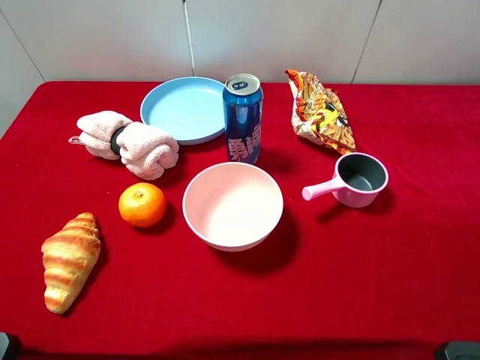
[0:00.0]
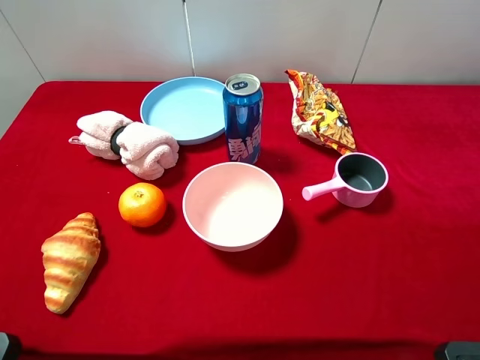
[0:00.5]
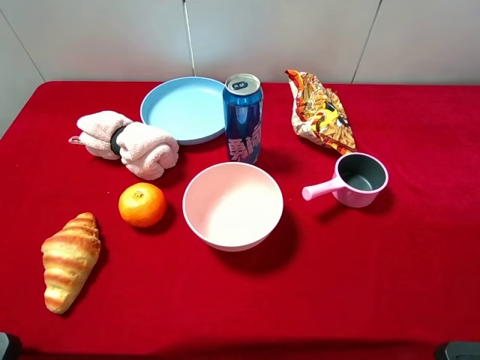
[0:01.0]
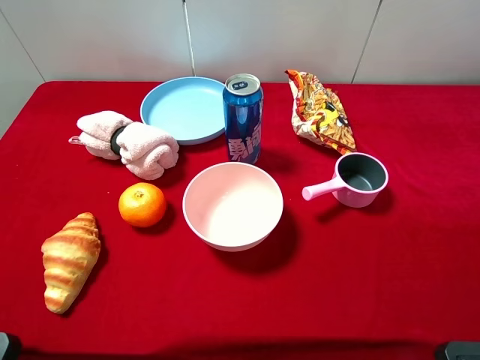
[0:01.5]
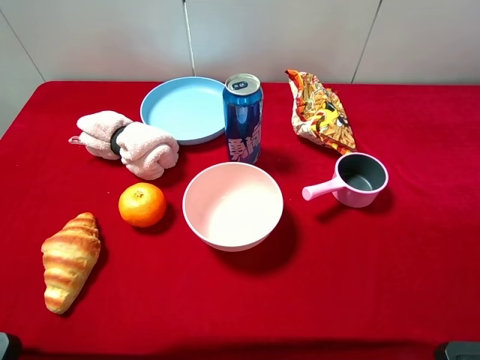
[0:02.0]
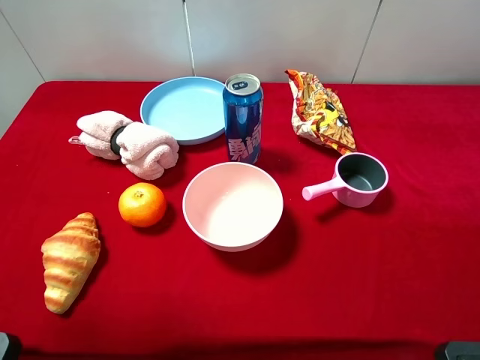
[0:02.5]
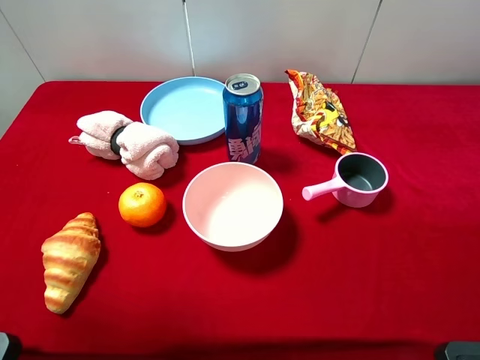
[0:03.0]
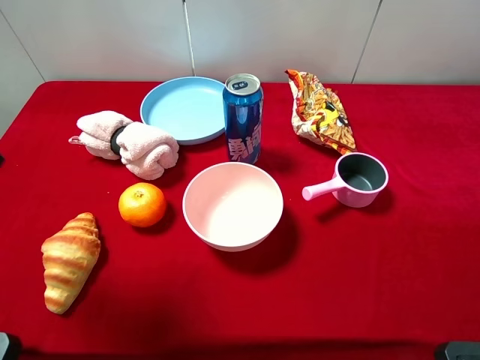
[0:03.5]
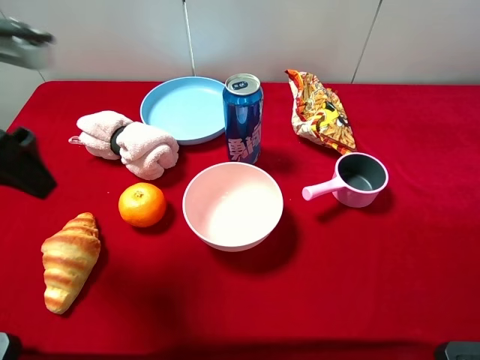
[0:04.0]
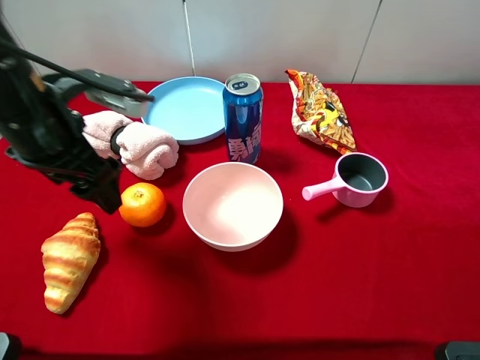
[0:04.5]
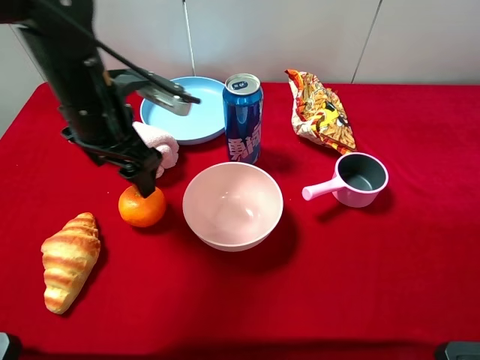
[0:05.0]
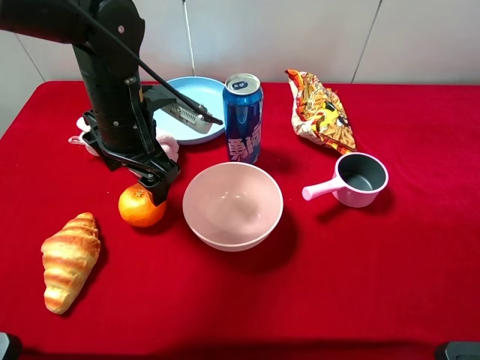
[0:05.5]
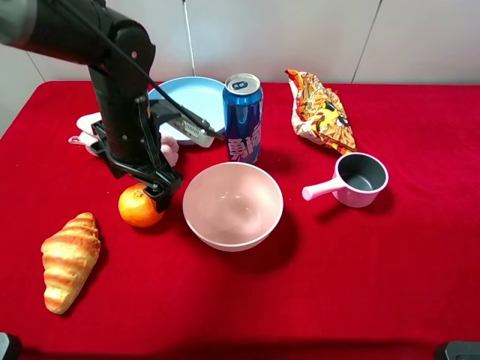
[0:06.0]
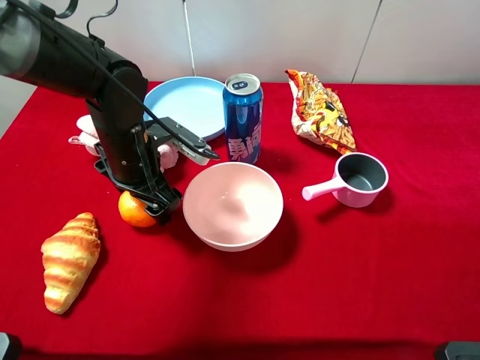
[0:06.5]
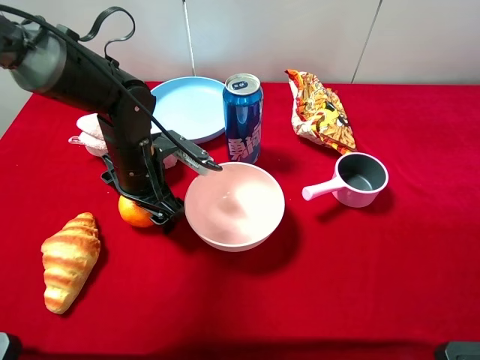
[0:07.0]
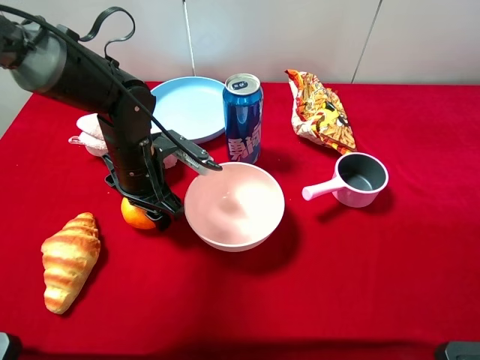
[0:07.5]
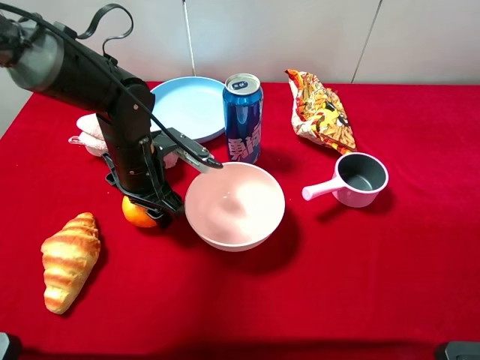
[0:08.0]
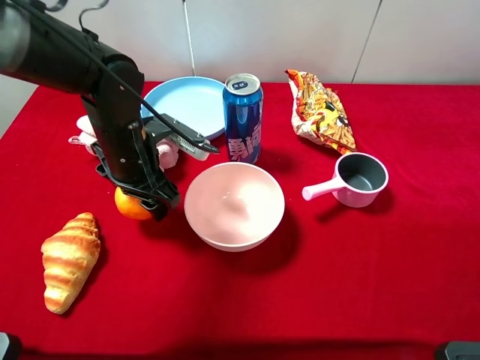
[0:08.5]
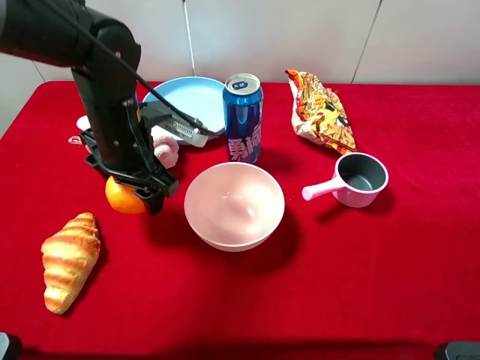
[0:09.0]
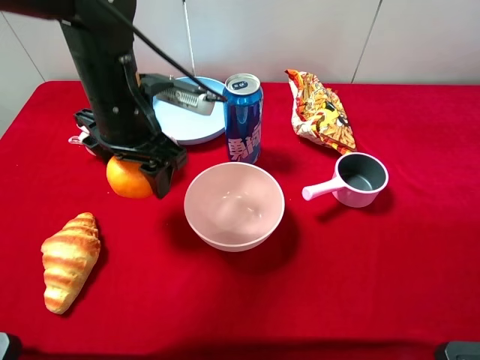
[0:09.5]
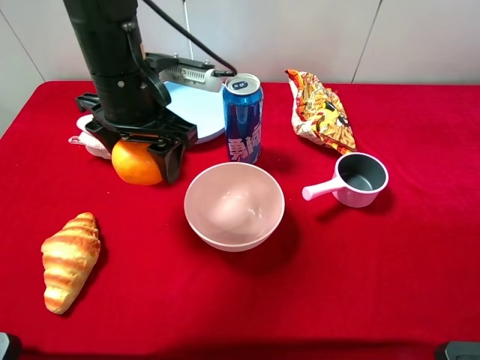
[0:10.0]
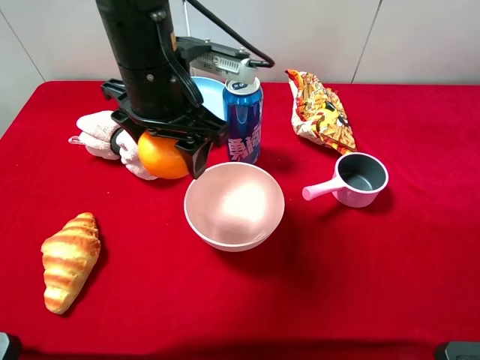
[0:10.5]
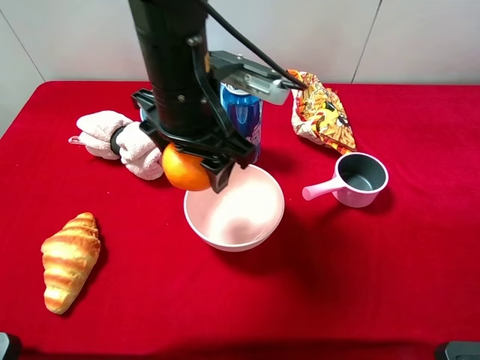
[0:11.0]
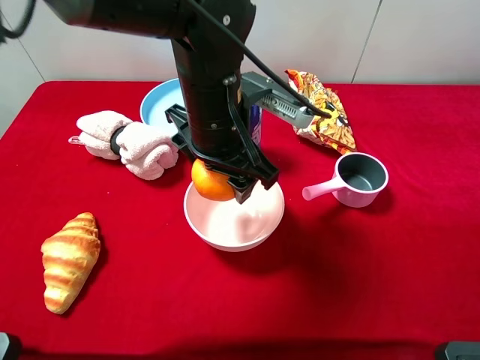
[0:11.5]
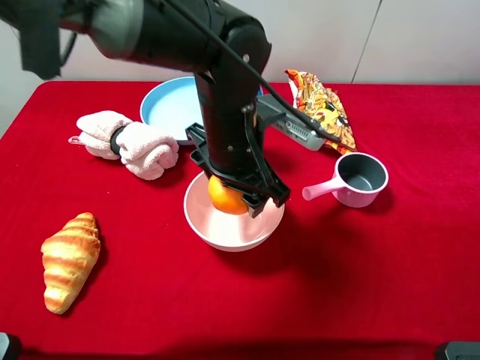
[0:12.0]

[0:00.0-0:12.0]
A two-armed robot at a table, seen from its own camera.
Task of the whole recording: pick up an item with a gripper and place it in a random container on the desktop.
0:02.0 to 0:04.0: The left gripper is displaced forward, to the right and downward by roughly 15 cm.
0:04.0 to 0:06.0: The left gripper moves downward, to the right and forward, some 20 cm.
0:06.0 to 0:08.0: The left gripper closes its fingers.
0:08.0 to 0:10.0: The left gripper moves upward, roughly 15 cm.
0:10.0 to 0:12.0: The left gripper moves to the right and downward, about 15 cm.

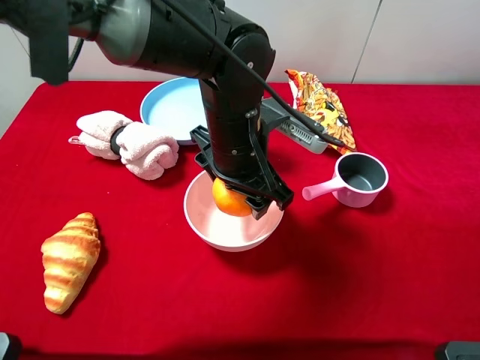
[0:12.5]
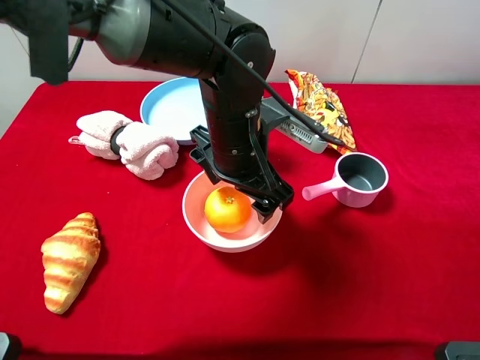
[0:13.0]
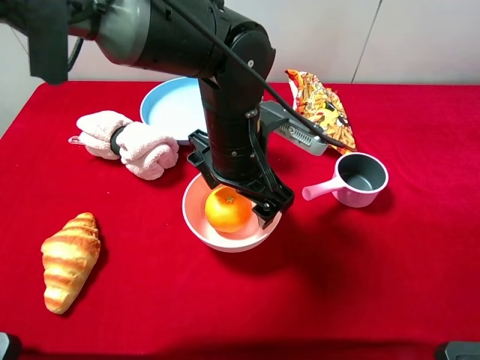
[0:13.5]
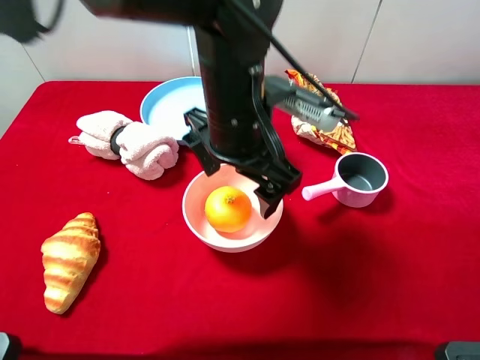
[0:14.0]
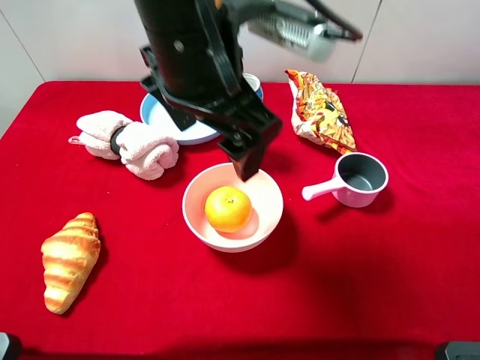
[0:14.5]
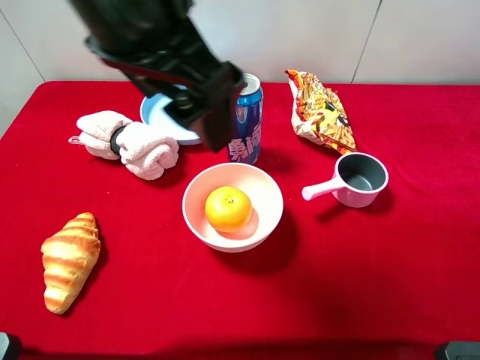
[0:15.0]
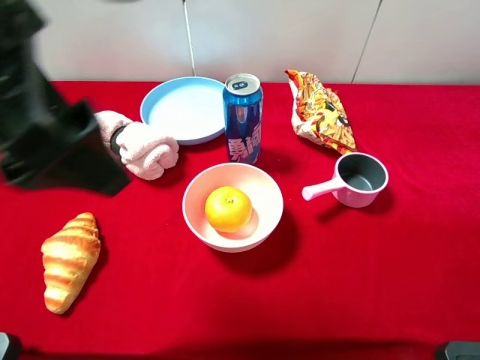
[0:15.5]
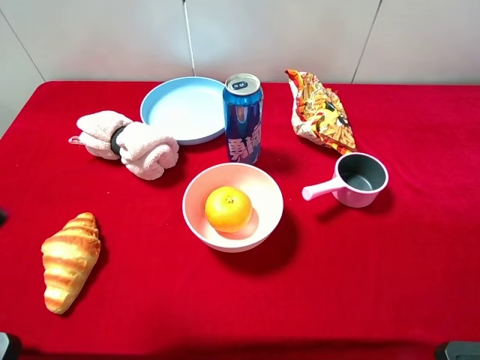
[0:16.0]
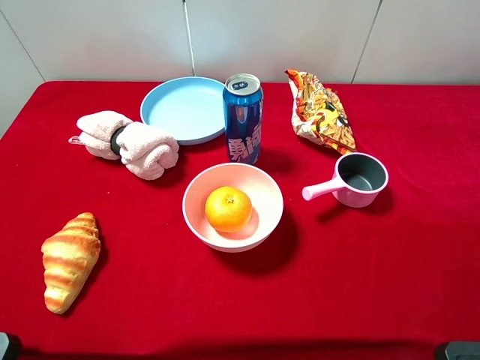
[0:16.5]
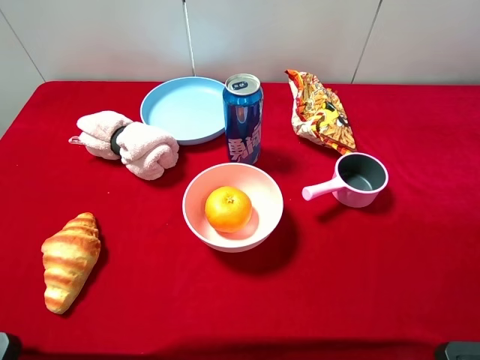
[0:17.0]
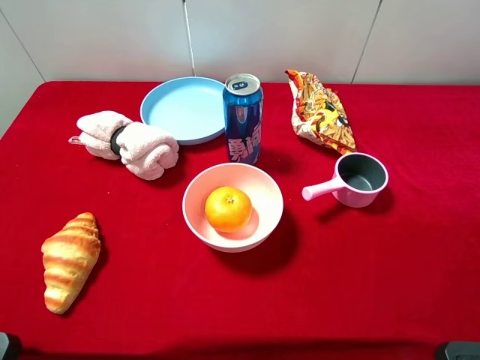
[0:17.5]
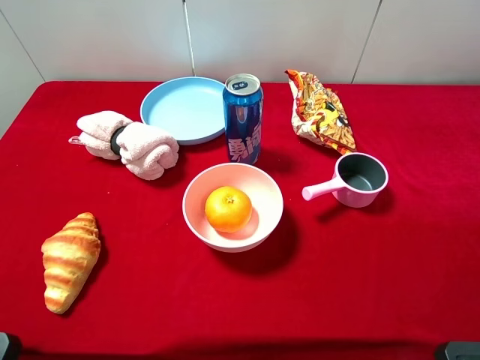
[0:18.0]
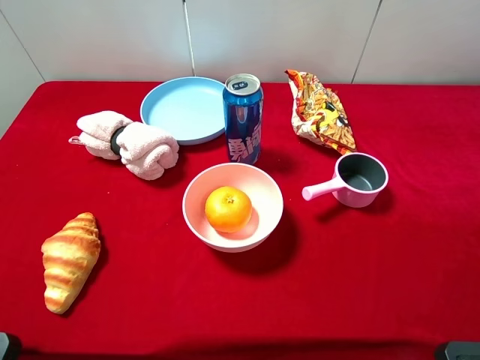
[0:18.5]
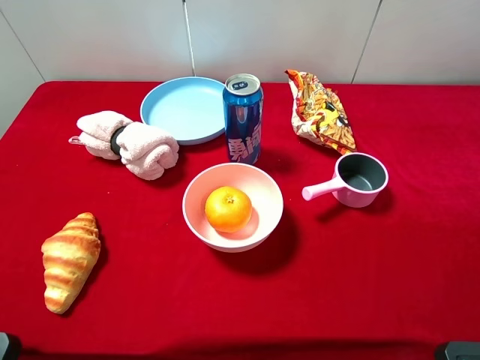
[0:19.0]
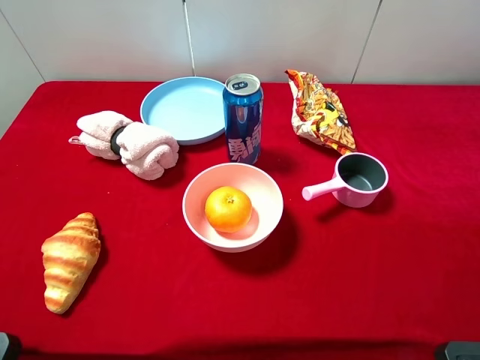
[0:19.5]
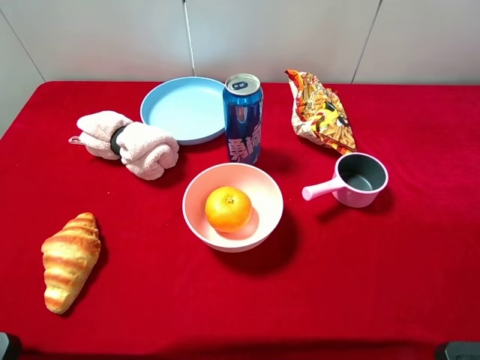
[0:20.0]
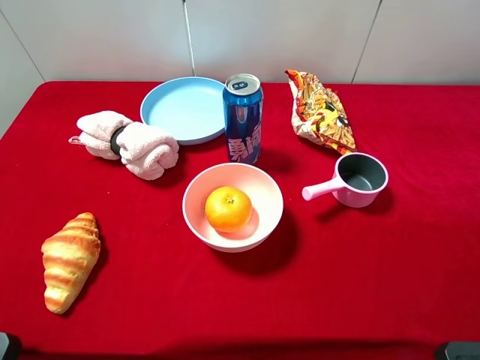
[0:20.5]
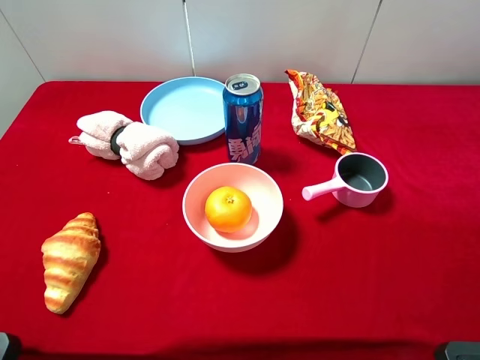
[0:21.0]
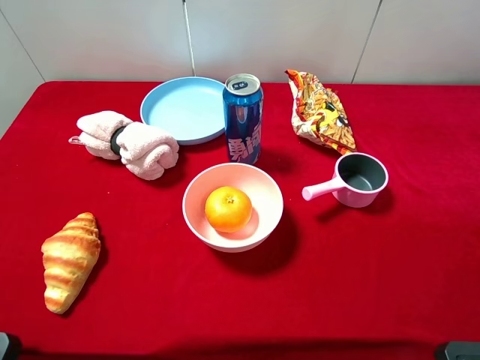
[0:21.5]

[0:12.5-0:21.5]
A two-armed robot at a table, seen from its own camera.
Task of the whole recording: pick up an item with a gripper and place it in a random container on the desktop.
0:12.5 to 0:14.5: The left gripper moves upward, roughly 15 cm, and opens up.
0:14.5 to 0:17.0: The left gripper moves to the left and backward, about 35 cm.
0:19.5 to 0:21.5: Both grippers stay about where they are.
